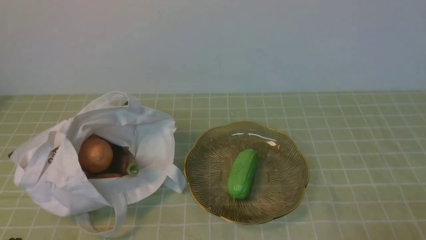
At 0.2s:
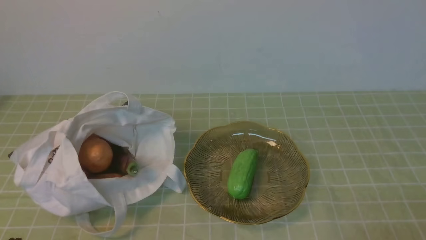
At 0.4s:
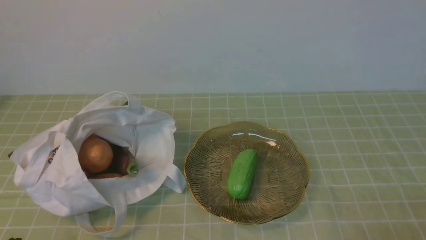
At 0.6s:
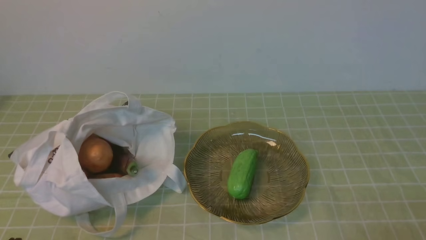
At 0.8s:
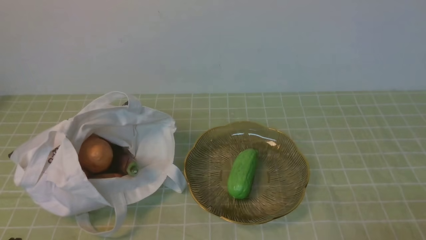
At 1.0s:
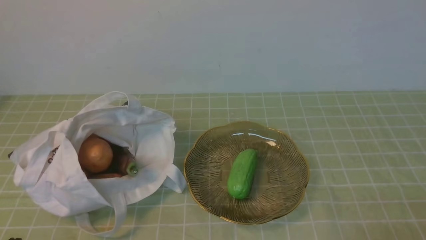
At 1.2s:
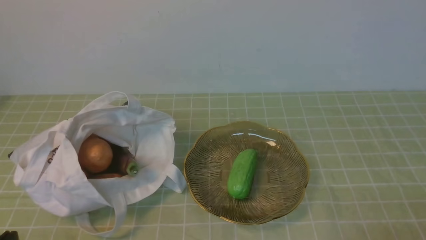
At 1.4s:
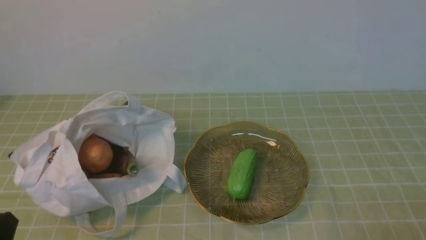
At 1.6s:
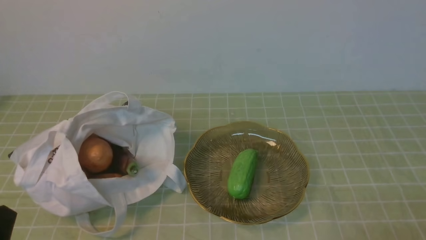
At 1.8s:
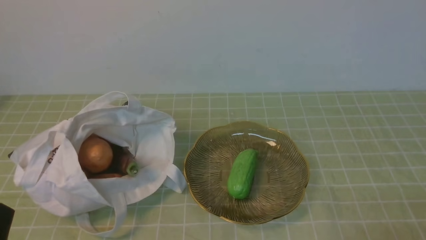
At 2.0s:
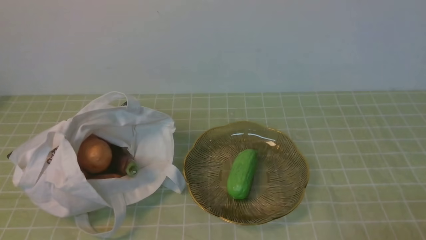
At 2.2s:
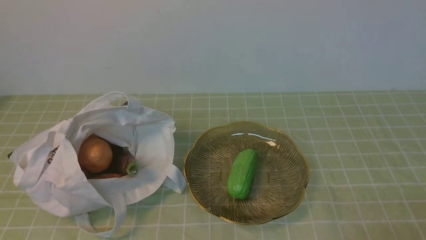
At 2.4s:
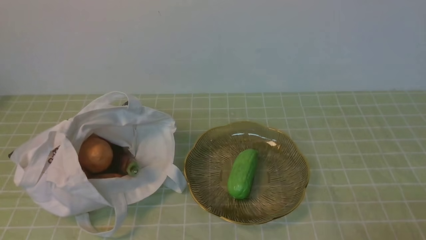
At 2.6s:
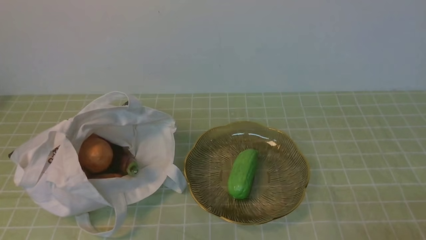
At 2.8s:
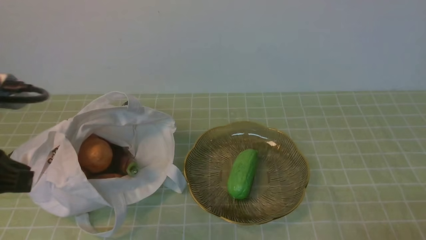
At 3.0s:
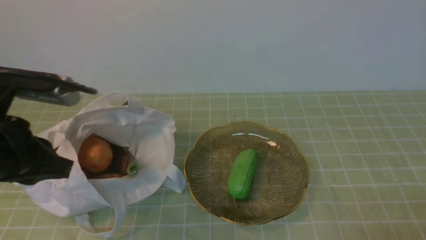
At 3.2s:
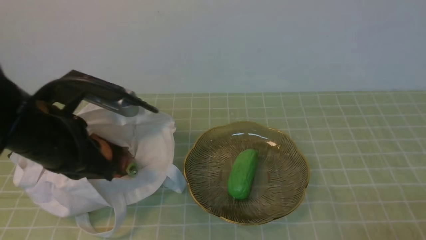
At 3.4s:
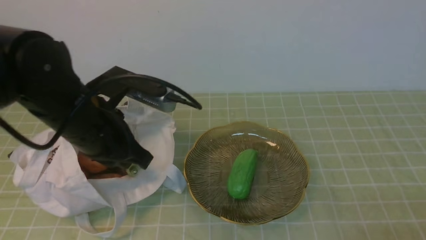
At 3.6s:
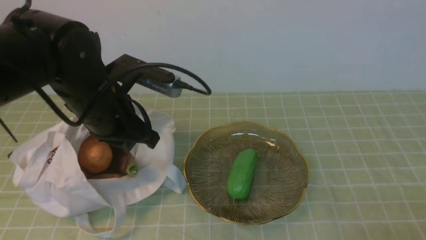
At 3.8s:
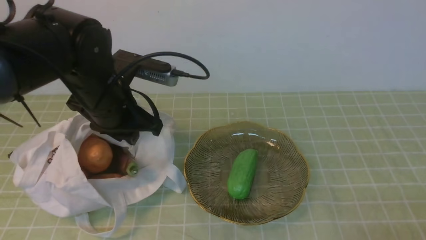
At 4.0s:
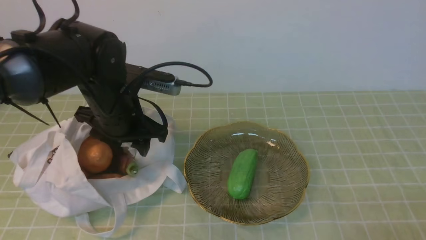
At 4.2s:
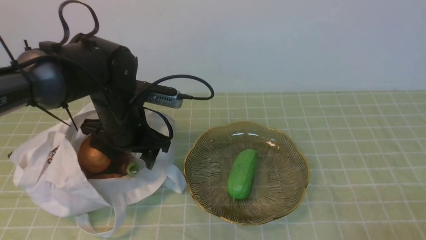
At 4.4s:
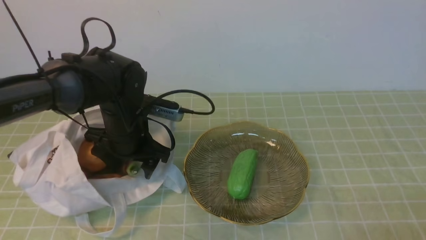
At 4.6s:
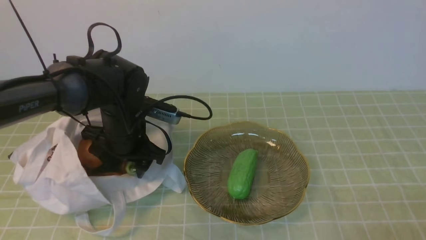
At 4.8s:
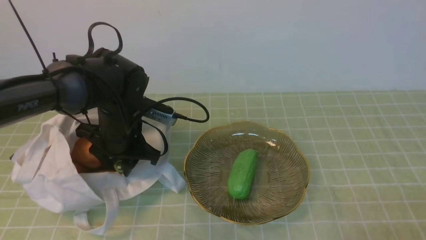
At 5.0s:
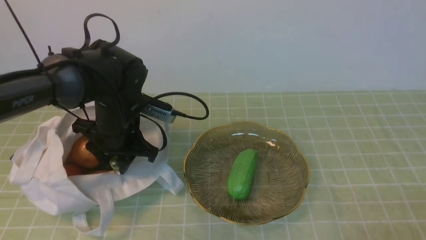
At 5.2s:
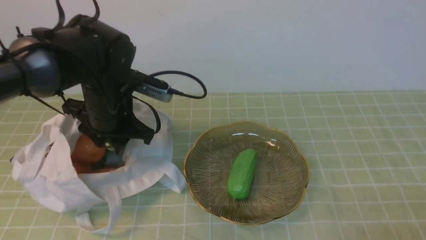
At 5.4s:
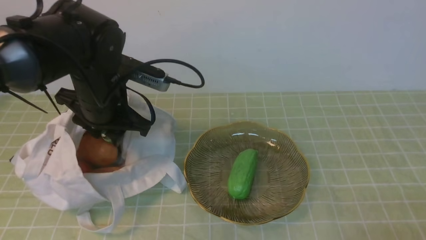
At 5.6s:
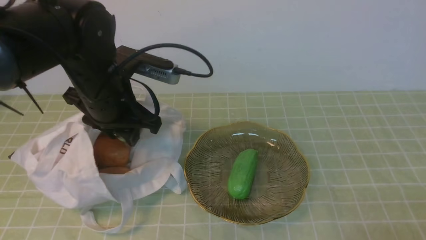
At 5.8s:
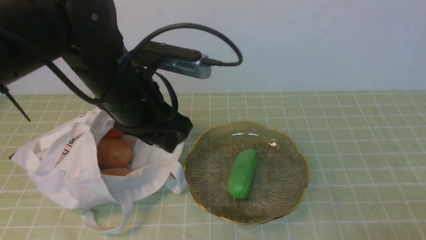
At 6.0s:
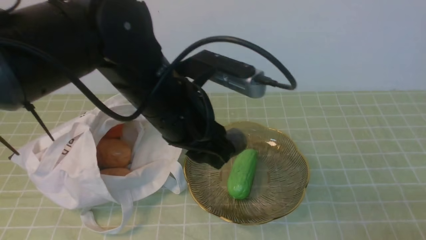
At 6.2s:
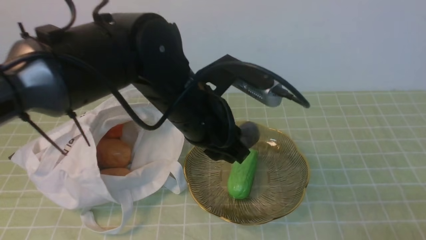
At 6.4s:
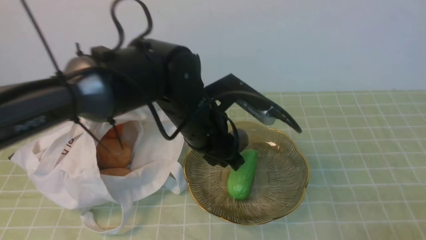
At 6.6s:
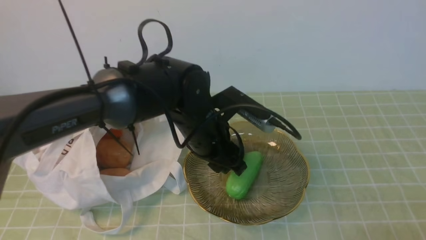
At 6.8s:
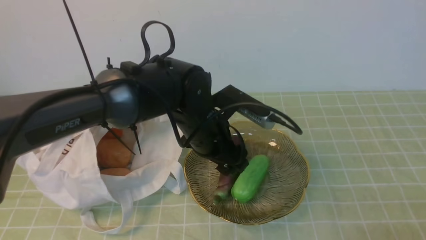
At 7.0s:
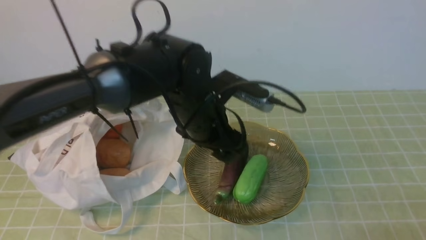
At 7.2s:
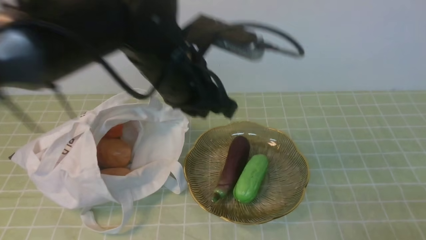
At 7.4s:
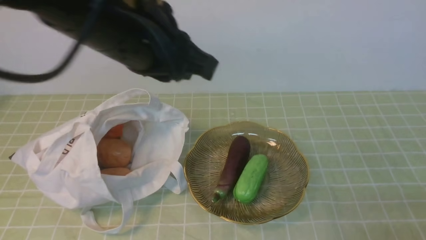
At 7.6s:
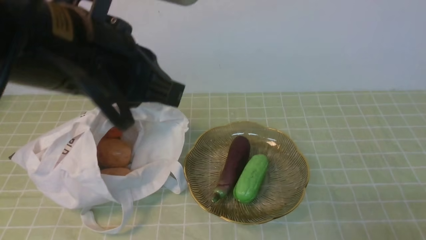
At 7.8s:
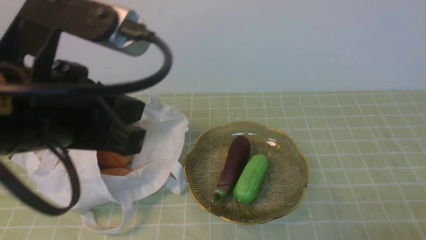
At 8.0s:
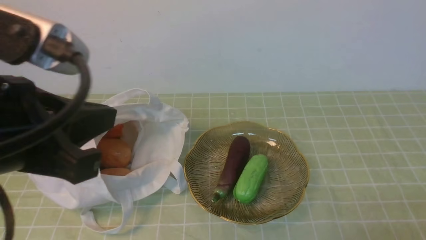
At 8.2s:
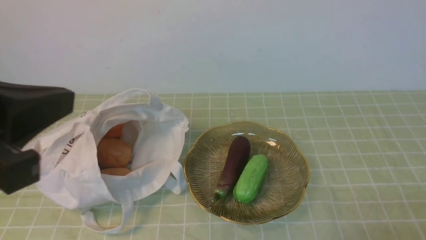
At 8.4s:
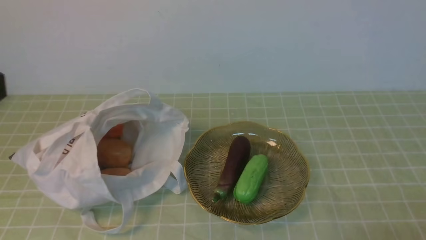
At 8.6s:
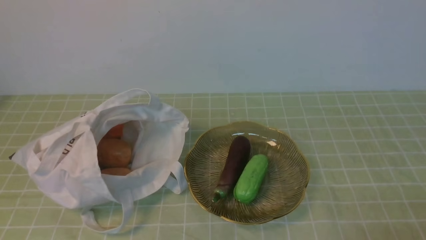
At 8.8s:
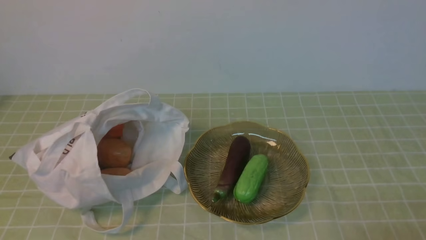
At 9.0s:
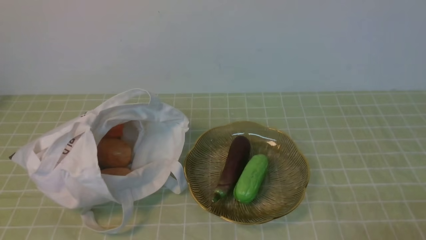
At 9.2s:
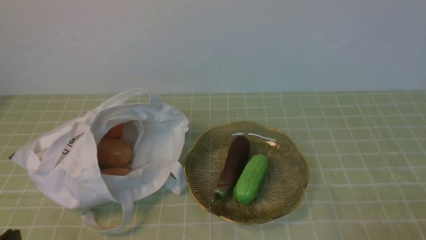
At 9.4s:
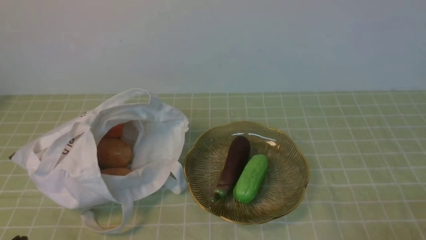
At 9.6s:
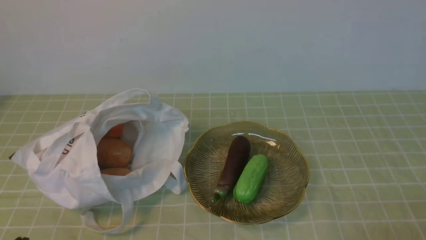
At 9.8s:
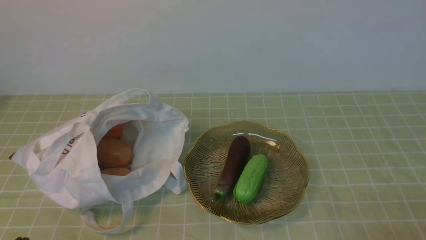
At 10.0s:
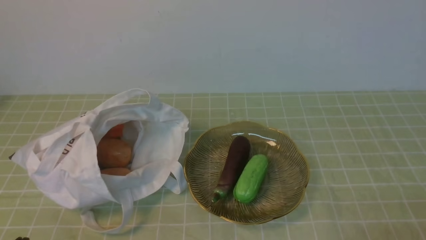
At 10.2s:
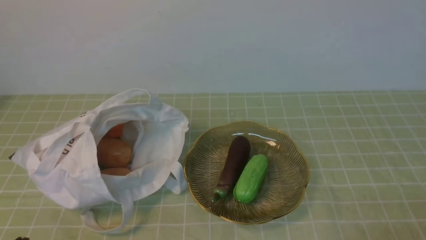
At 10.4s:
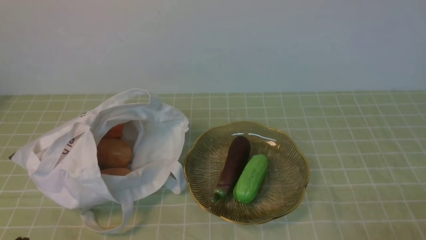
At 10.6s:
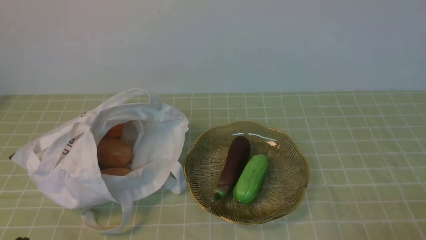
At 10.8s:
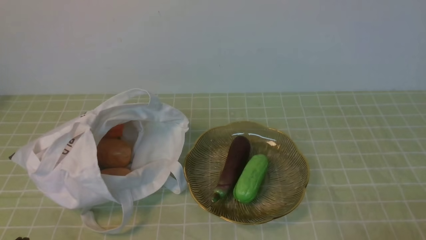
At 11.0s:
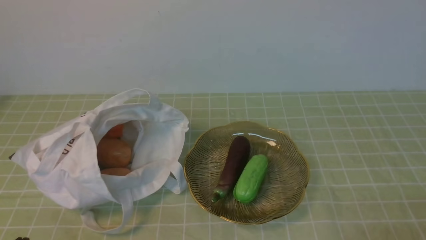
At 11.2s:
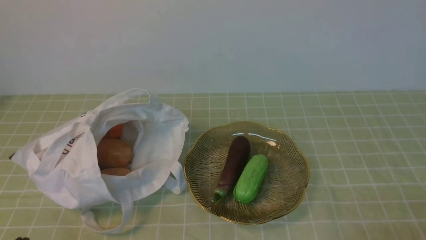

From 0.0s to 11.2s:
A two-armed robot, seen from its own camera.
Task of the whole recording: take vegetables from bag on green coffee tablecloth place on plate.
Step, from 0.0s to 4.8s: Grasp the eggplant with left gripper.
Step, from 5.0s to 7.0s: Place the eggplant on the plate with left gripper.
From 1.6s to 3.2s: The left gripper heads forward and upward, covering about 20 cm.
From 3.2s to 4.8s: The left gripper moves forward, downward and to the right, approximately 20 cm, and opens.
From 4.8s to 6.4s: The left gripper is displaced to the right and upward by about 15 cm.
From 6.4s to 8.0s: The left gripper is displaced backward, to the left and upward by approximately 25 cm, and closes its fingers.
From 8.0s to 9.6s: The left gripper heads downward and to the left, covering roughly 25 cm.
From 9.6s to 11.2s: Both grippers stay put.

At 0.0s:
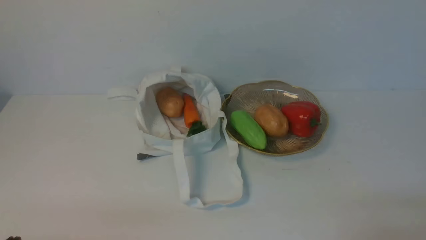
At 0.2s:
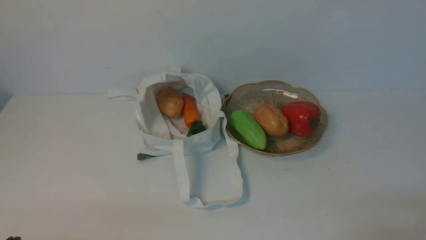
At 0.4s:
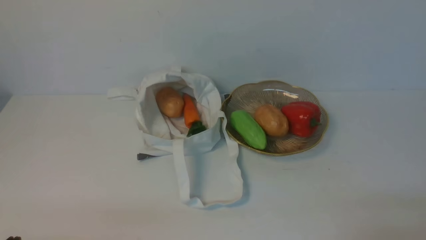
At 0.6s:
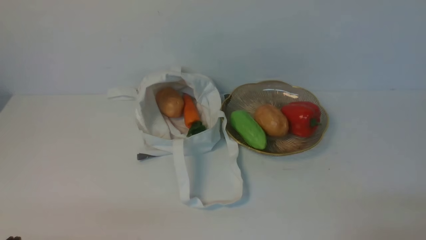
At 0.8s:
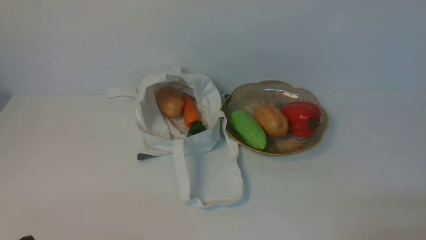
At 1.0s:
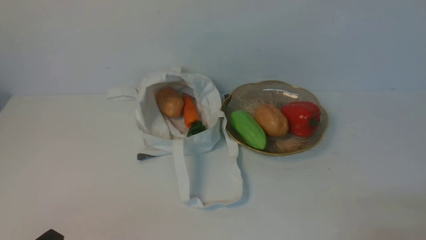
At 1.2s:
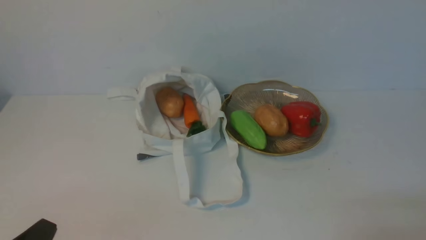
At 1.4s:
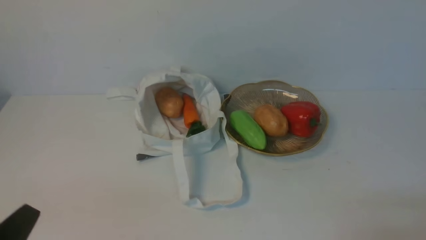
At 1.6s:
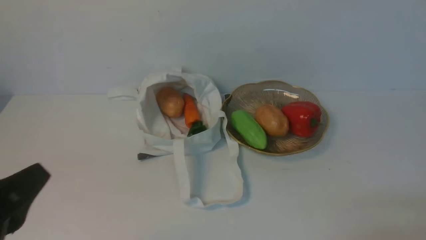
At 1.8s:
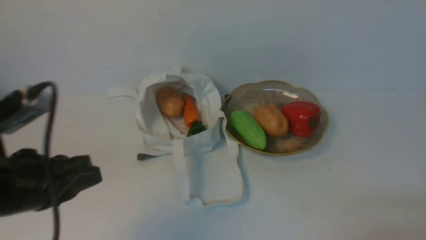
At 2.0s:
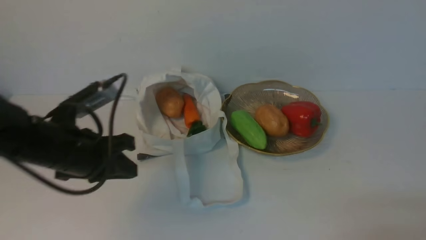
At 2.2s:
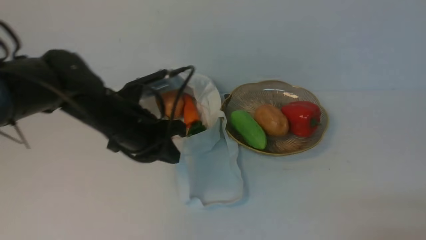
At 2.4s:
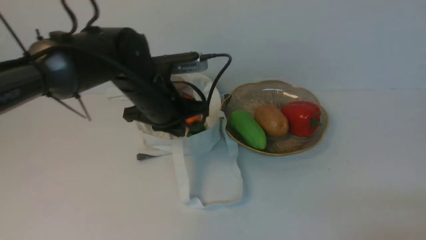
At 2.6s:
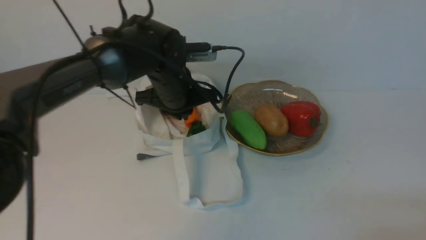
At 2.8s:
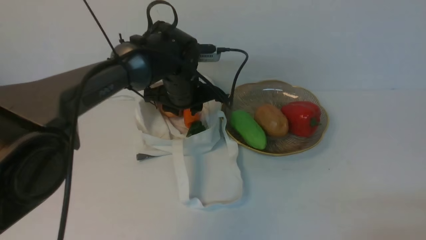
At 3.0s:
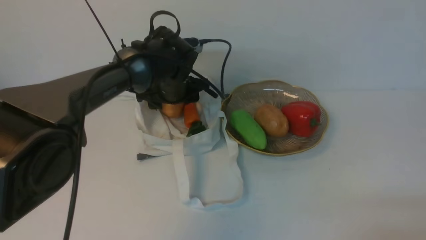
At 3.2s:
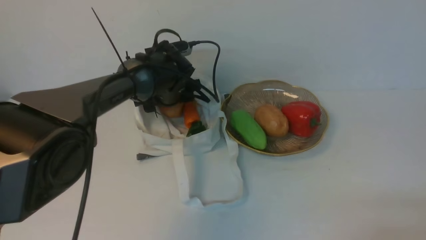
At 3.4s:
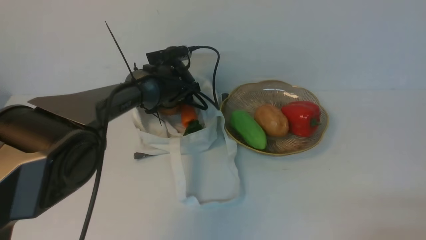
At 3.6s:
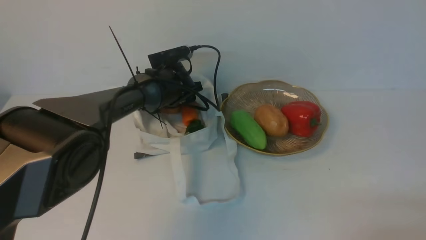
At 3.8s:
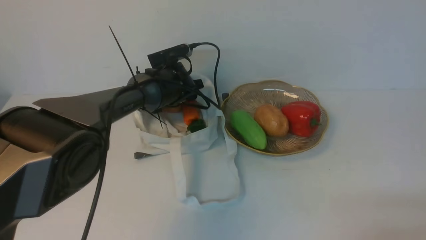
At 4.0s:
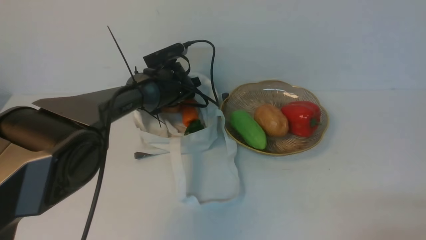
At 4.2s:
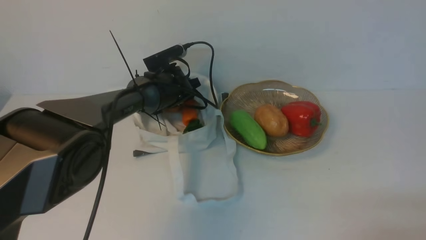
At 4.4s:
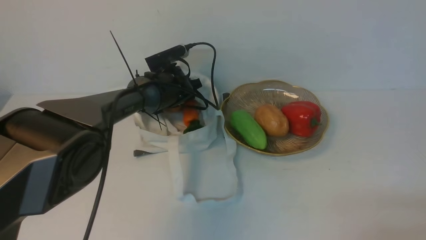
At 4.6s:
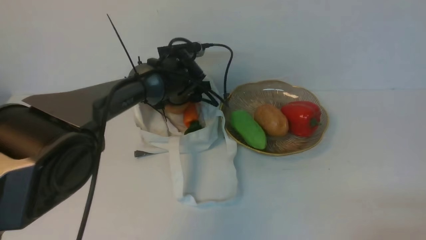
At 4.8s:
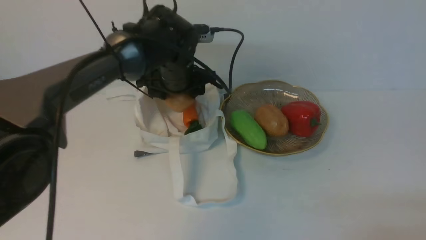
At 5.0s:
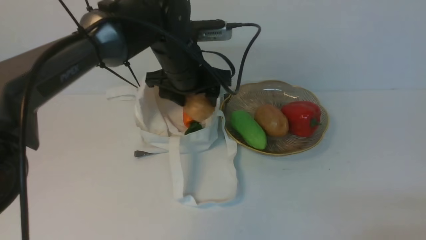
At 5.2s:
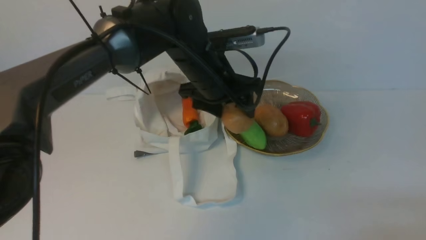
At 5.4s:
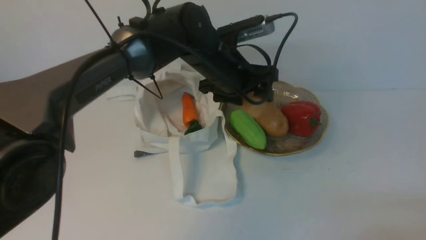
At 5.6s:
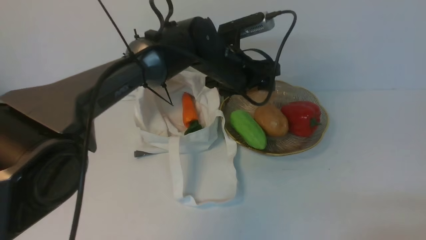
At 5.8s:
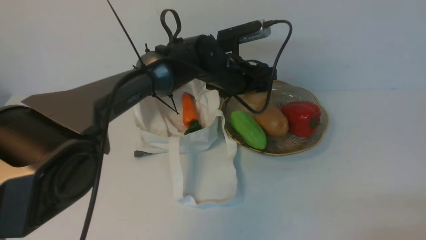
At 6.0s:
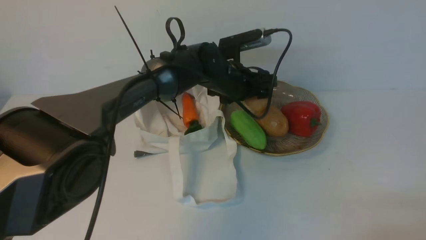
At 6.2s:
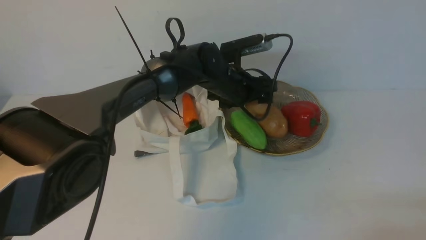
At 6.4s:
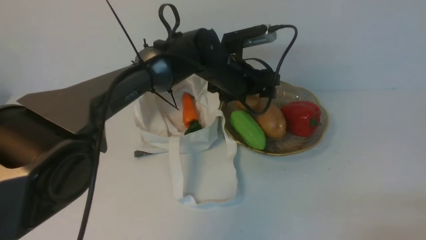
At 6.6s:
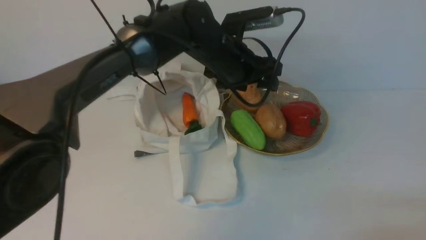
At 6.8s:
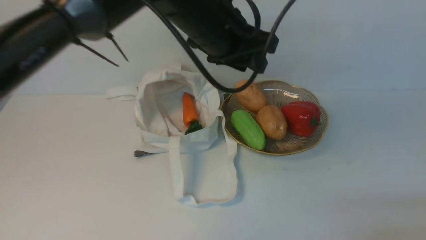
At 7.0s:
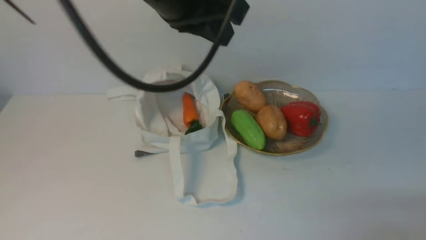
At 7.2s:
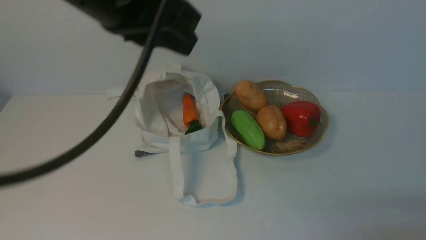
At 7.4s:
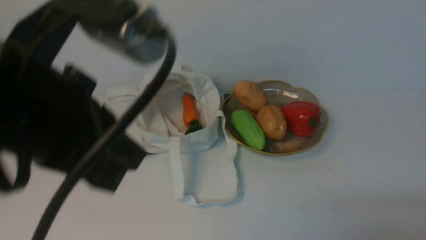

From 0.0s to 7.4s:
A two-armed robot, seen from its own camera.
Task of the whole recording: take vegetables from cloth bag on white table place on plate.
Step, from 0.0s to 4.2s: Grasp the potato with left gripper.
Step, from 4.4s to 6.8s: Place the potato on the plate with left gripper.
From 1.4s to 3.0s: The left gripper heads forward and to the right, covering about 40 cm, and opens its fingers.
From 3.0s to 4.4s: The left gripper moves downward, about 5 cm.
From 4.4s to 6.0s: The left gripper shifts approximately 10 cm to the right and upward.
From 6.0s to 7.4s: The left gripper travels backward, upward and to the left by approximately 35 cm, and closes up.
